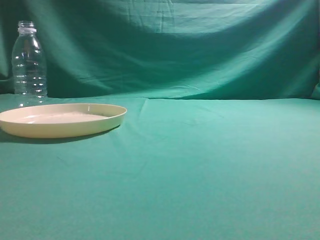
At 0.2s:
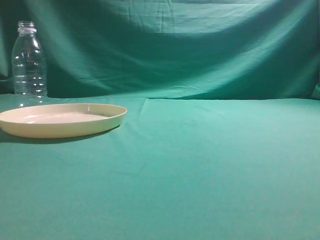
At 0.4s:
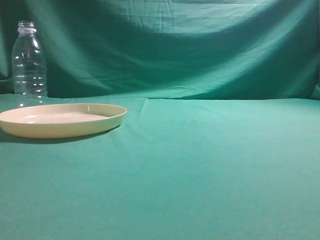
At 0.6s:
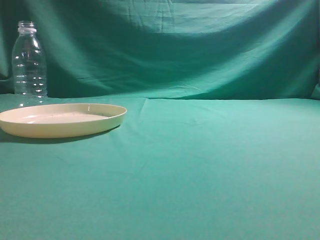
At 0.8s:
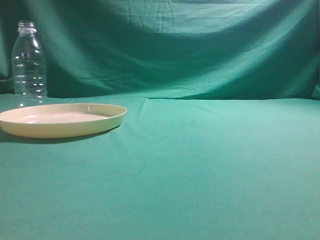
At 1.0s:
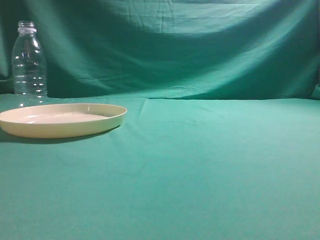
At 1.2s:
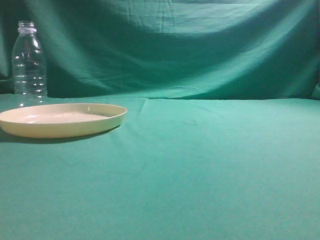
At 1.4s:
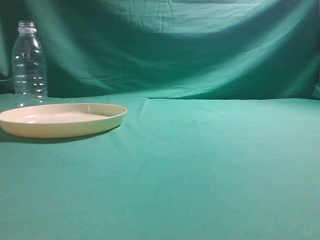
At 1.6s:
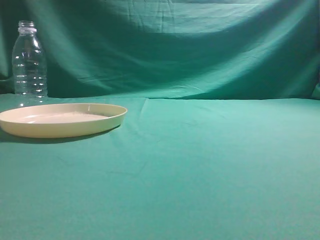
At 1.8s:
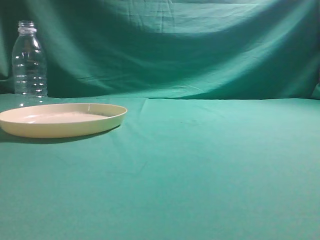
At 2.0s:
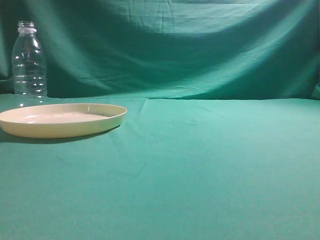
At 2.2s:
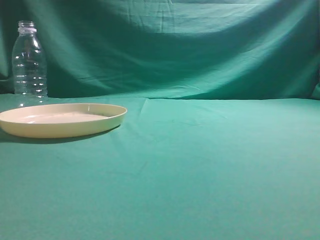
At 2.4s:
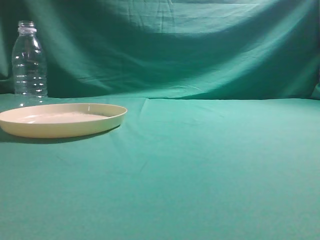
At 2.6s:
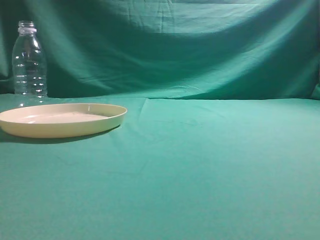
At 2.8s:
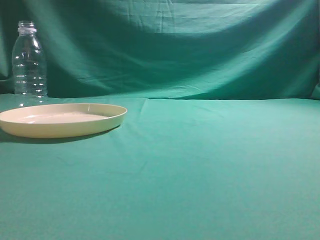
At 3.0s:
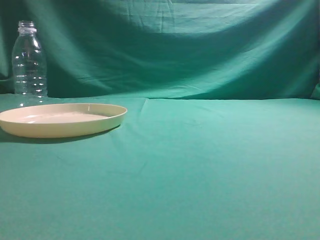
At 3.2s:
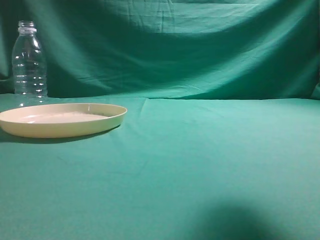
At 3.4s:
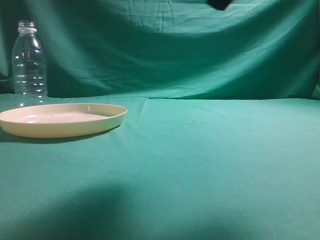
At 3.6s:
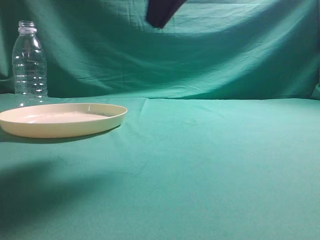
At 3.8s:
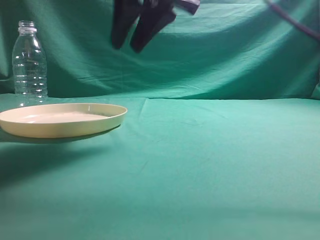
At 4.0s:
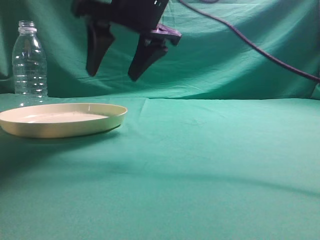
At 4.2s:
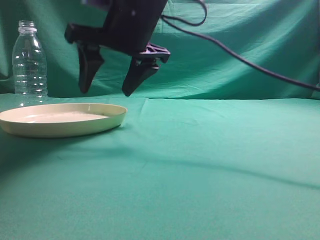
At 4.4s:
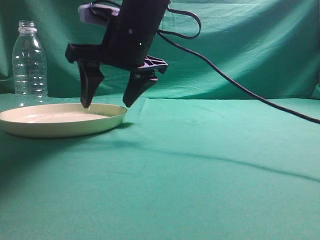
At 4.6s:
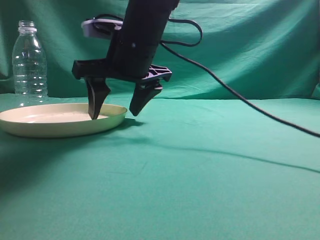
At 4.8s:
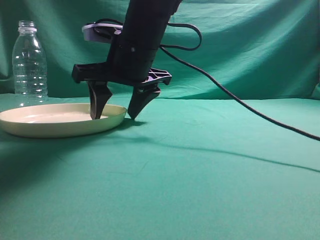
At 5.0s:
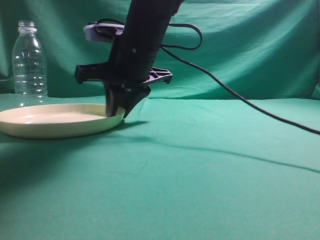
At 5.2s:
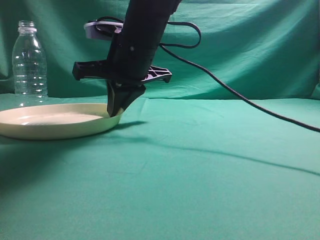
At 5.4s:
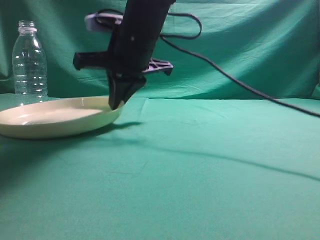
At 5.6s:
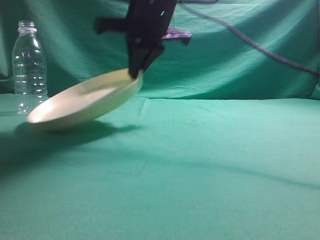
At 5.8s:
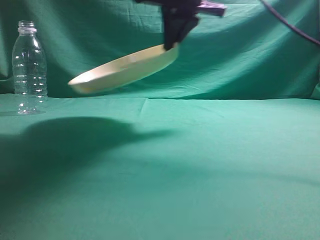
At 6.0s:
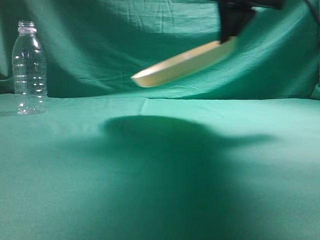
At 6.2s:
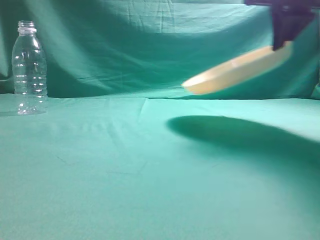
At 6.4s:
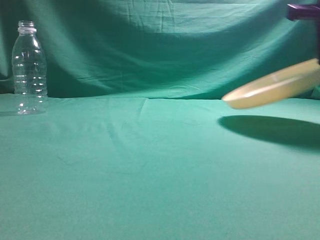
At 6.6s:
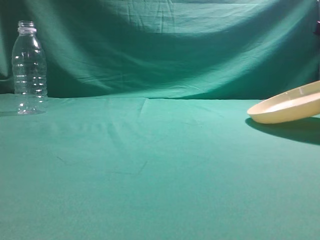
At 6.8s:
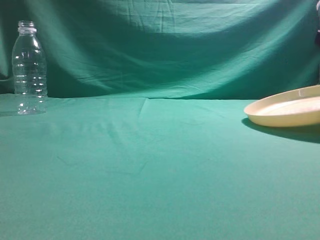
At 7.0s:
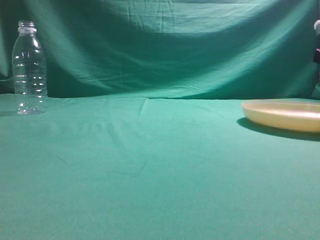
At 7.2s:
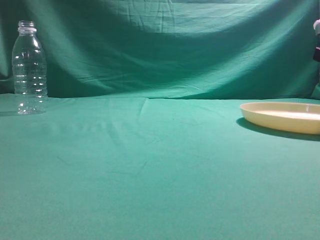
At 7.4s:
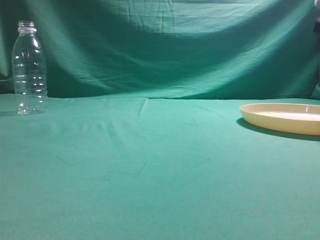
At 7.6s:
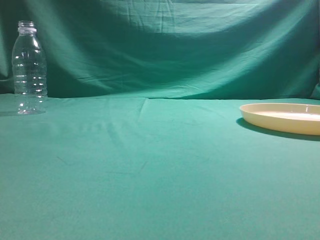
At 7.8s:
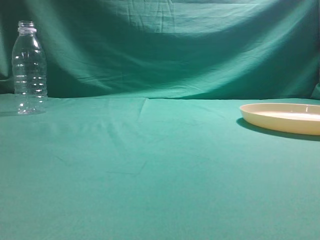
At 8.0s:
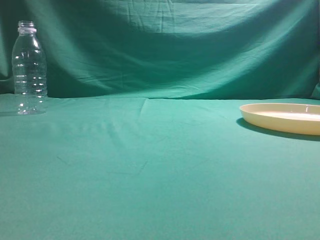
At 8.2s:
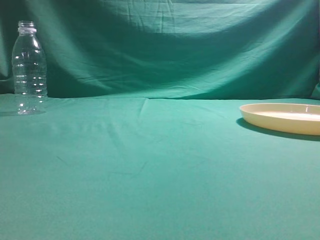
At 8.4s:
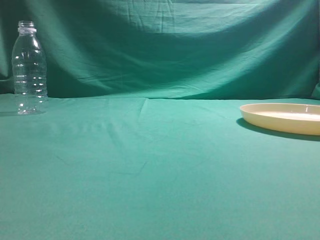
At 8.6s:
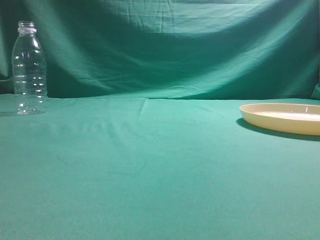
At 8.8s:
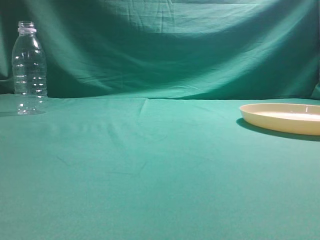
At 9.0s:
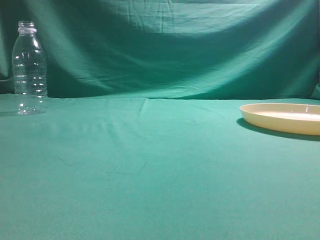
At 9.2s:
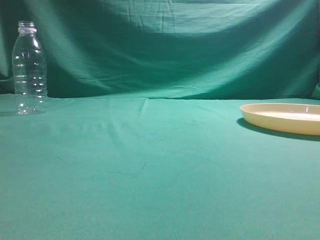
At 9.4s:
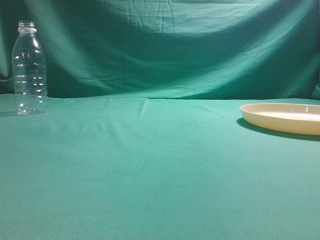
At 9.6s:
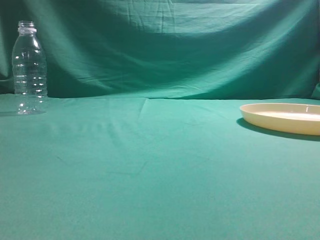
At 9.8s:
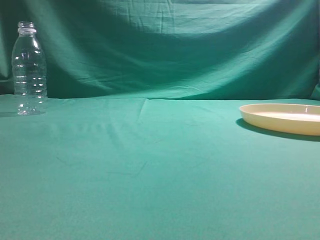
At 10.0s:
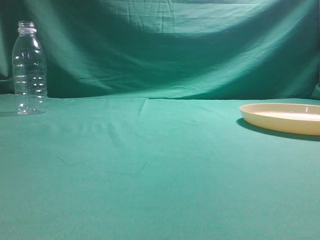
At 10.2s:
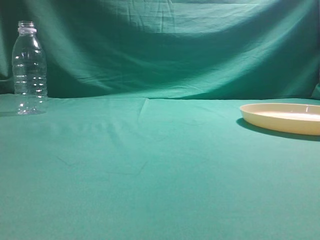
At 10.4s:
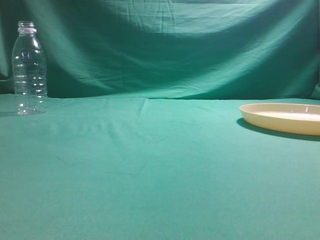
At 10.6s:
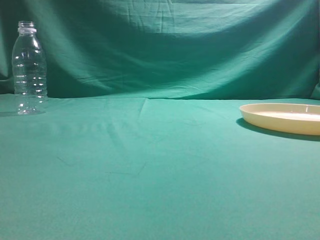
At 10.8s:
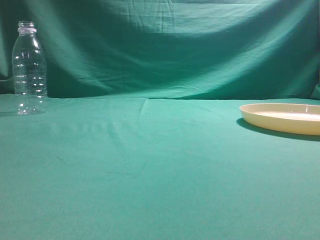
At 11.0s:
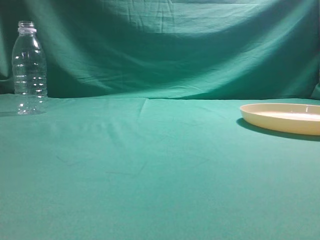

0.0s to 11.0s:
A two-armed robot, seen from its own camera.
Step, 0.0s to 5.6s: Pick the container that can hold fruits.
Step, 5.8s to 7.4s: Move the picked object to the right side of the table.
1.6s to 3.2s: The right gripper moves forward, upward and to the left, some 20 cm.
3.2s to 4.8s: The right gripper heads to the left, forward and downward, covering roughly 30 cm, and opens its fingers.
4.8s to 6.2s: The right gripper is displaced to the right and upward by about 25 cm, and closes.
6.2s to 7.8s: The right gripper goes roughly 15 cm to the right, backward and upward, and opens and closes again.
